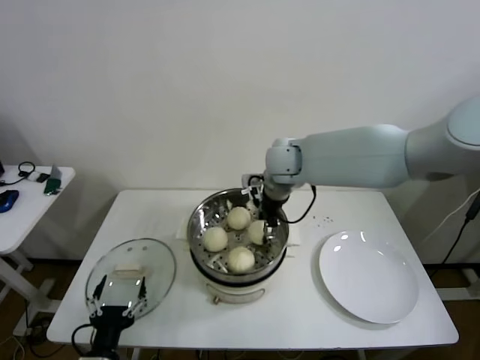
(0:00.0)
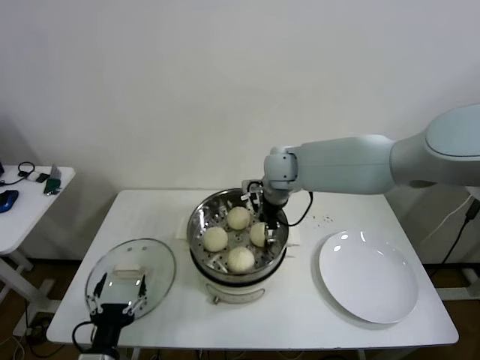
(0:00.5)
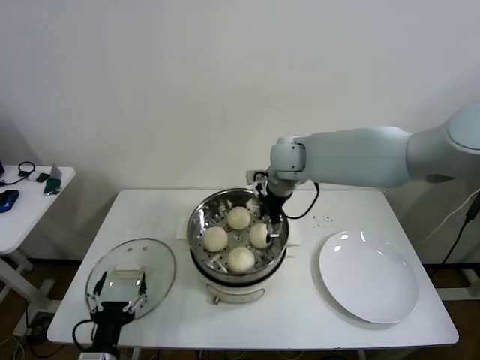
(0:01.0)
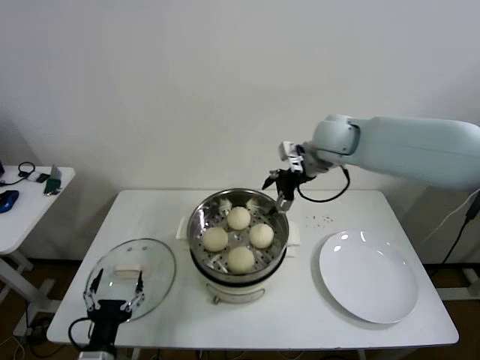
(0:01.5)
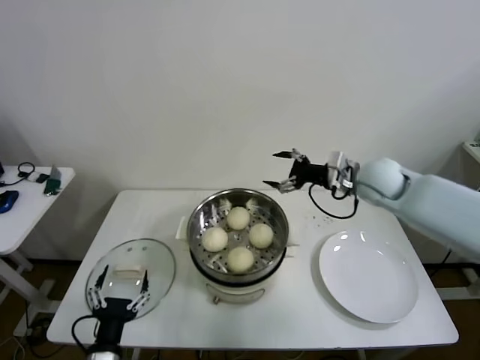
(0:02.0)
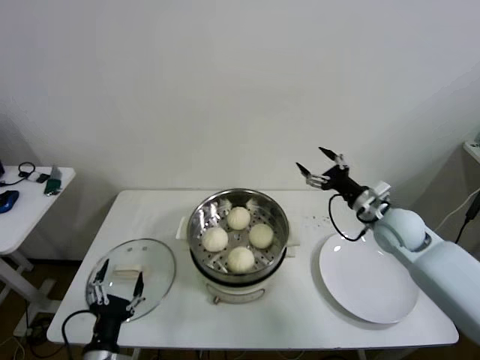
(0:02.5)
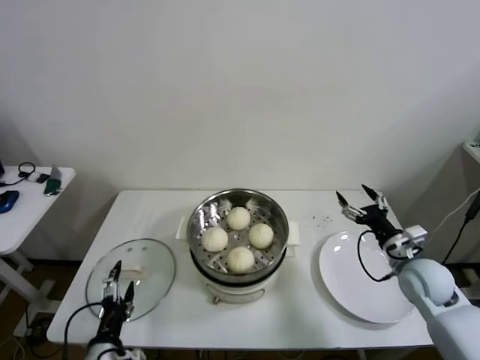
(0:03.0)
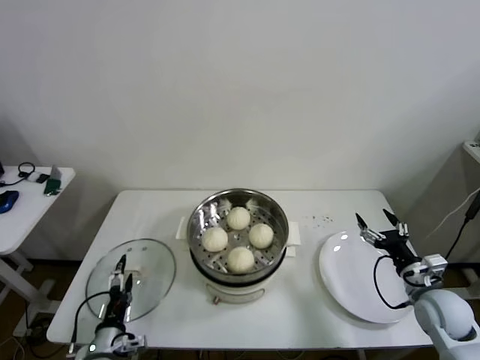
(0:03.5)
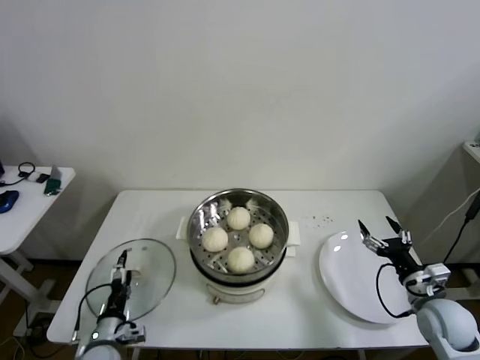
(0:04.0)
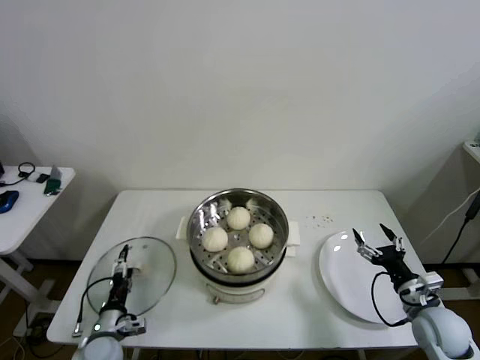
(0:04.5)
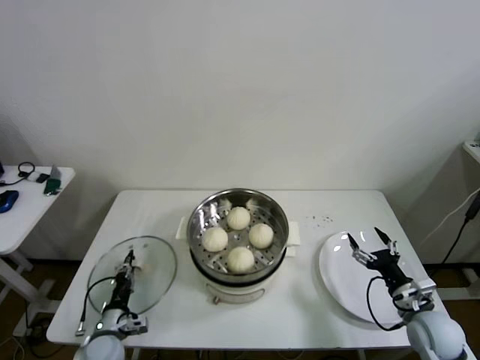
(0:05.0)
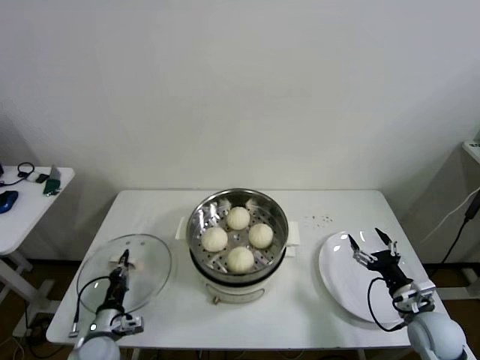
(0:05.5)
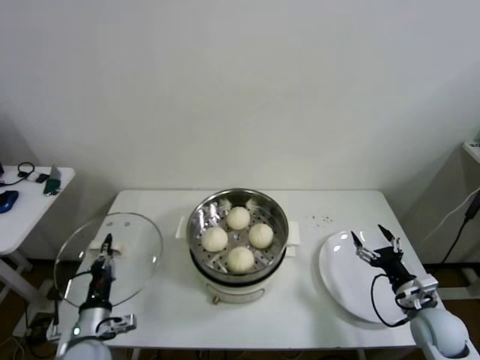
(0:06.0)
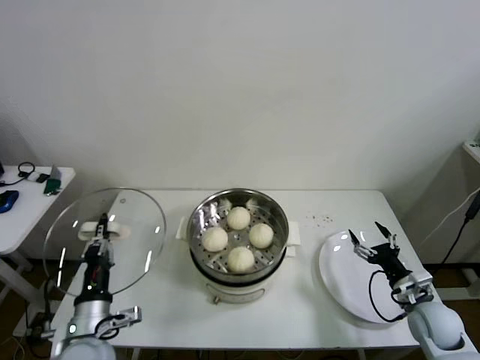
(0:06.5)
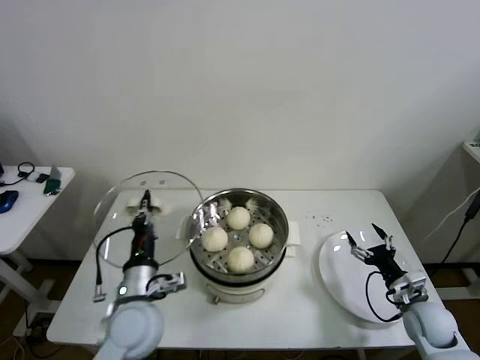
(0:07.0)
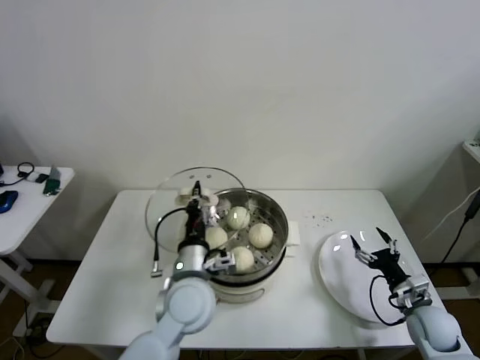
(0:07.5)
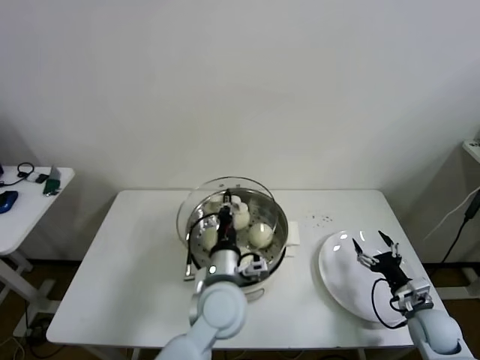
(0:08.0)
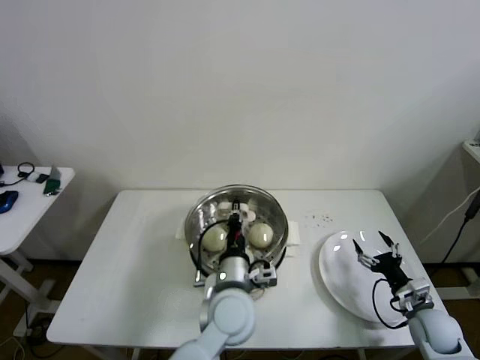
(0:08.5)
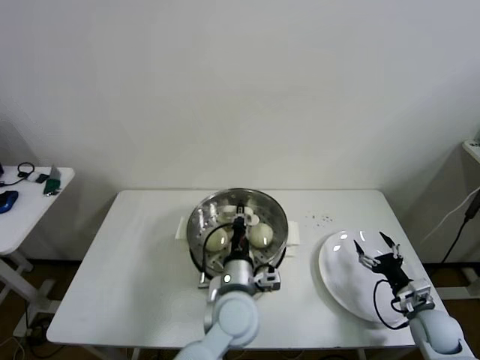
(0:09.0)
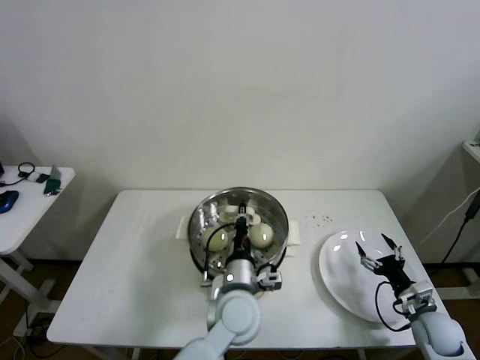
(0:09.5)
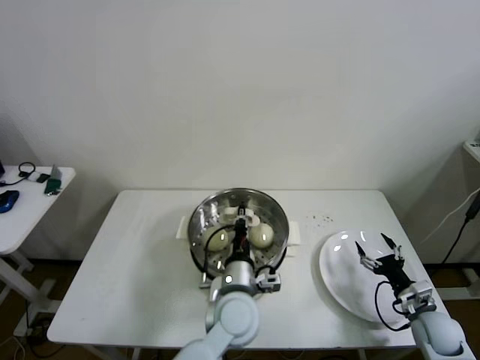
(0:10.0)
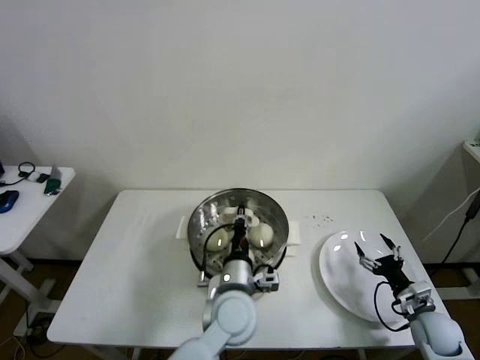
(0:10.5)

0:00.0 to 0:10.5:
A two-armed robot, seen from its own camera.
Step, 0:01.0 to 0:05.0: Grasp the pot lid with left gripper.
0:00.0 to 0:02.0: The right gripper heads to the right, covering approximately 20 cm, and opens up.
0:02.0 to 0:04.0: The left gripper travels downward, forward and to the left by some 15 cm. The right gripper travels backward, downward and to the right by some 35 cm.
0:04.0 to 0:06.5: The left gripper shifts some 15 cm upward, and closes.
0:06.5 to 0:08.5: The left gripper is displaced to the right by roughly 25 cm.
0:08.5 to 0:10.5: The grippers make only small movements.

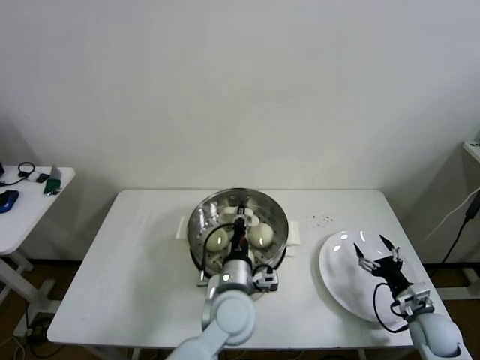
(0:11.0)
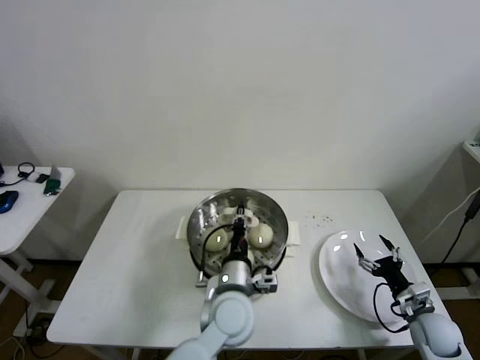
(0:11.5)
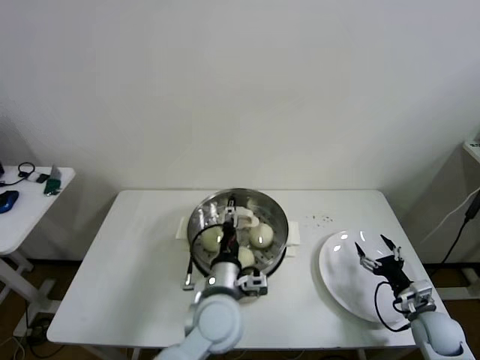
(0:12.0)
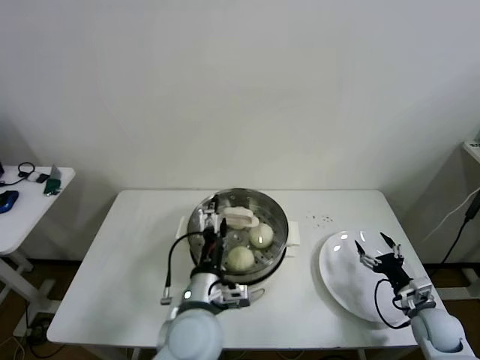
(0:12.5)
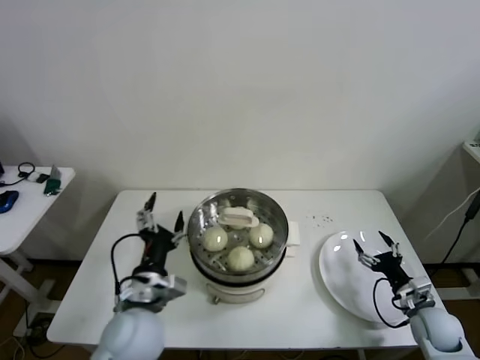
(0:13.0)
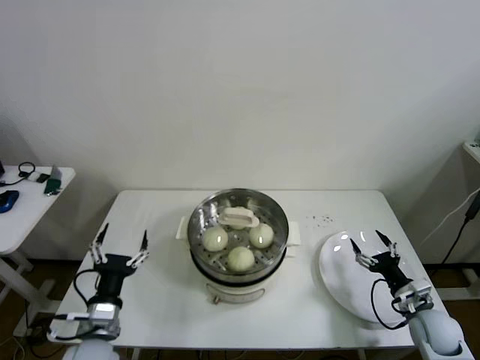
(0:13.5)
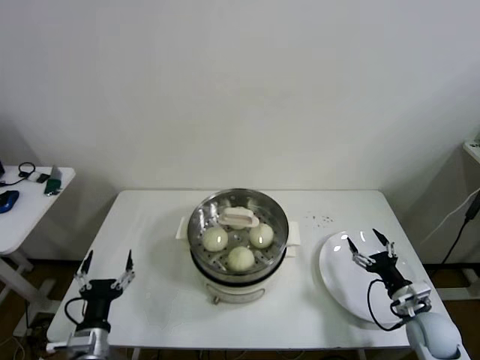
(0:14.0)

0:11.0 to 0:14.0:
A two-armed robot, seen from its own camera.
0:11.0 to 0:12.5: The left gripper heads to the left, covering roughly 5 cm, and opens.
0:12.5 to 0:14.0: The left gripper travels to the left and downward by roughly 25 cm.

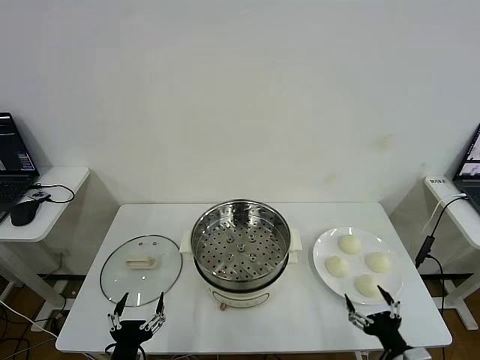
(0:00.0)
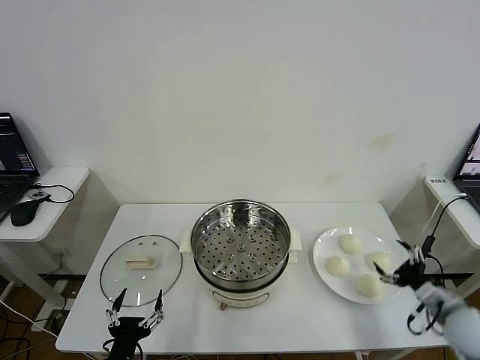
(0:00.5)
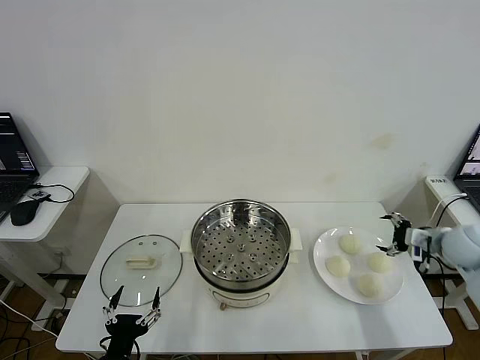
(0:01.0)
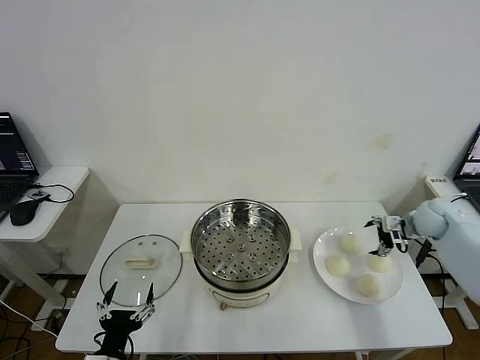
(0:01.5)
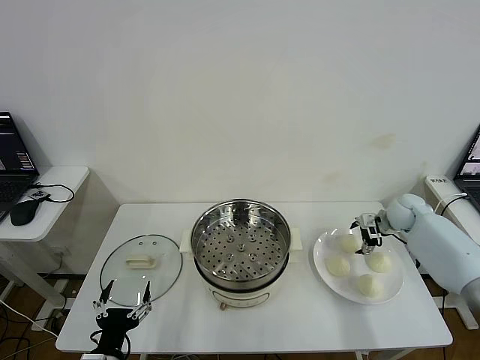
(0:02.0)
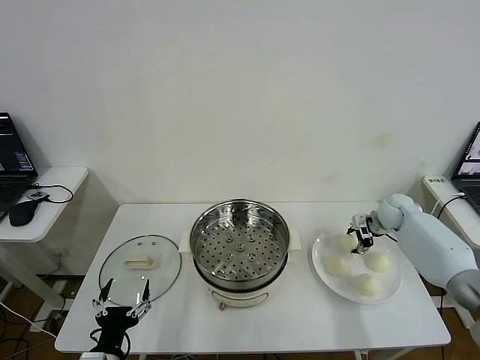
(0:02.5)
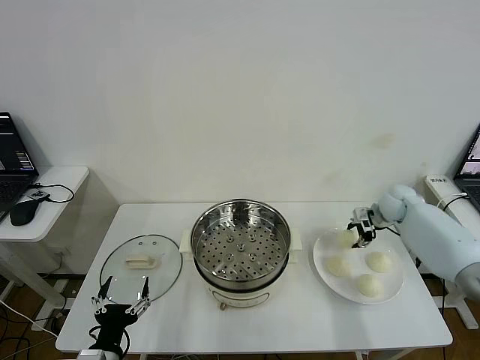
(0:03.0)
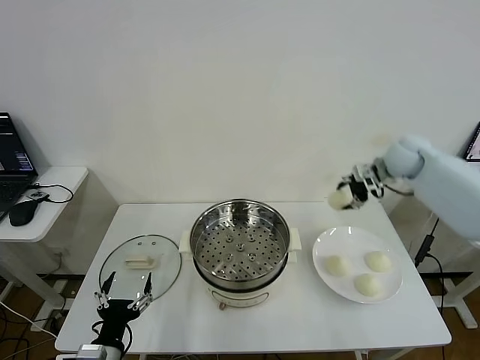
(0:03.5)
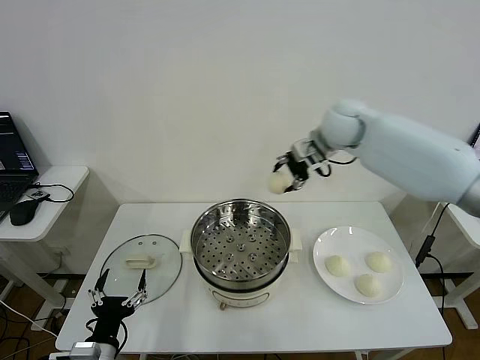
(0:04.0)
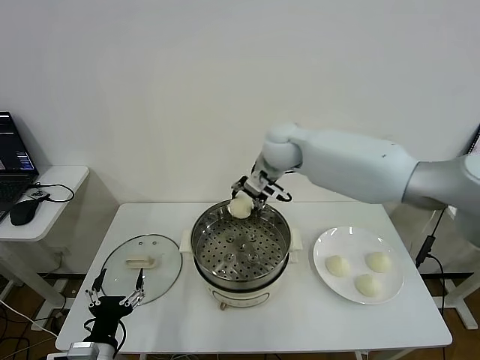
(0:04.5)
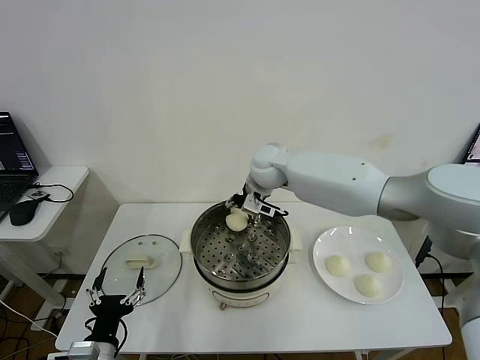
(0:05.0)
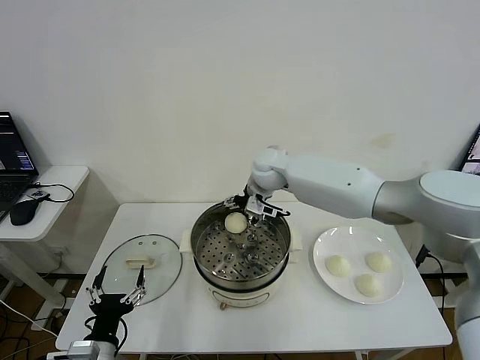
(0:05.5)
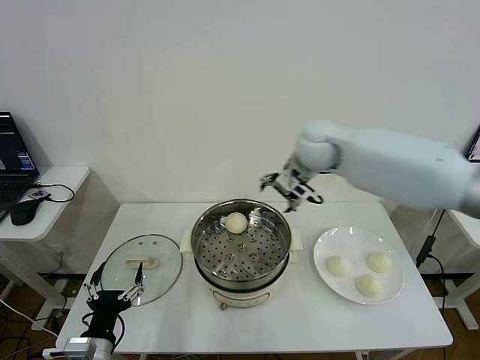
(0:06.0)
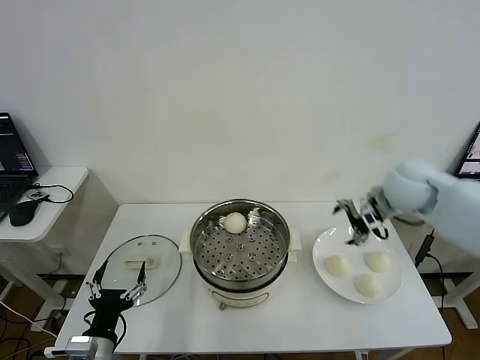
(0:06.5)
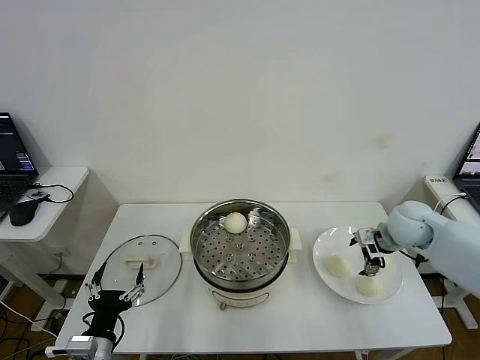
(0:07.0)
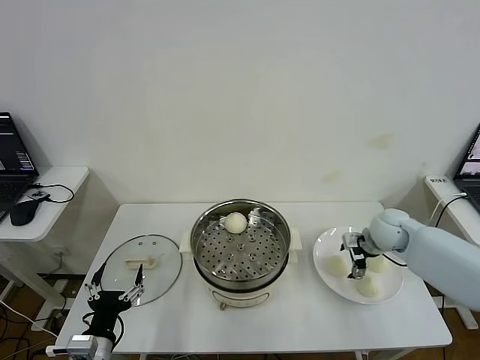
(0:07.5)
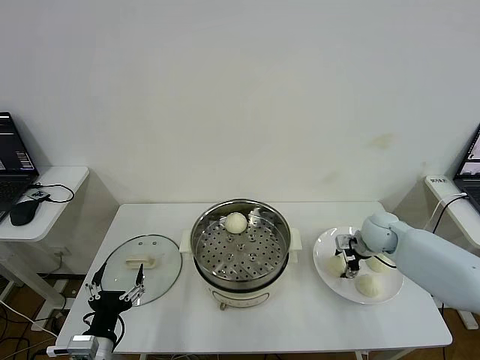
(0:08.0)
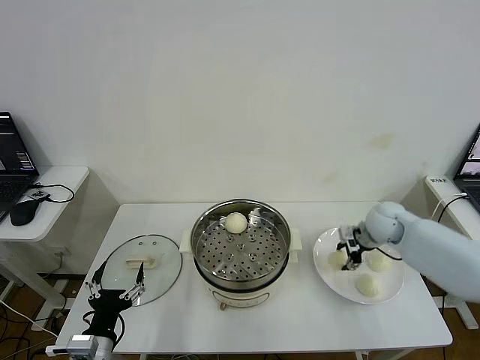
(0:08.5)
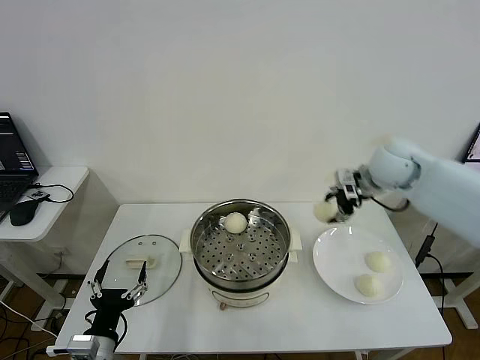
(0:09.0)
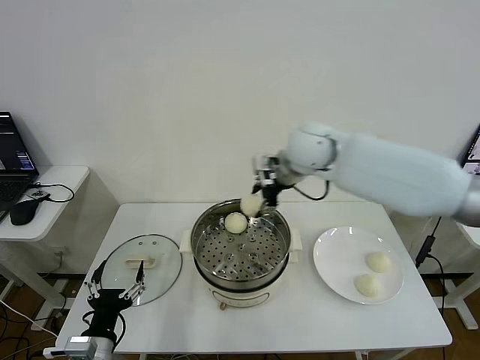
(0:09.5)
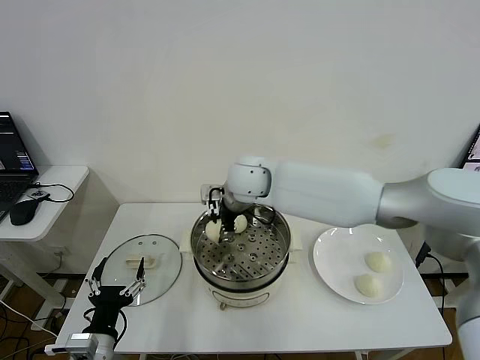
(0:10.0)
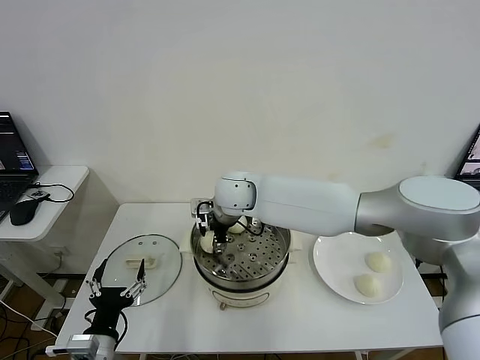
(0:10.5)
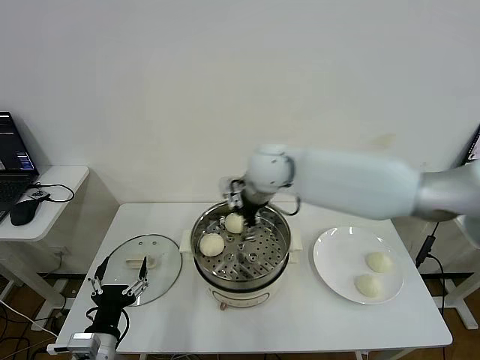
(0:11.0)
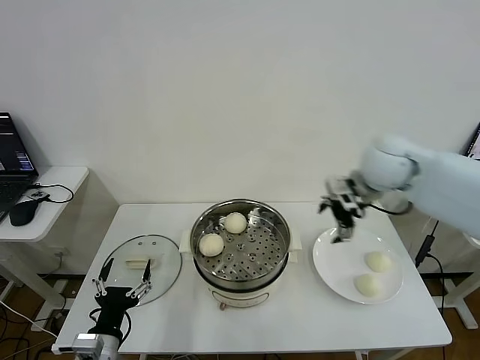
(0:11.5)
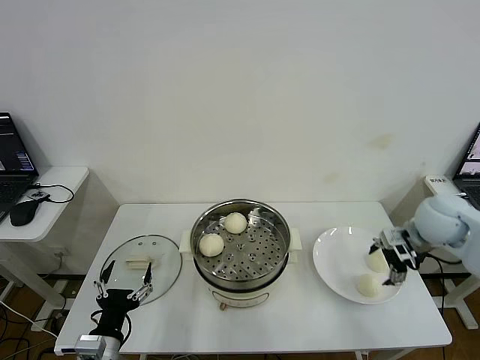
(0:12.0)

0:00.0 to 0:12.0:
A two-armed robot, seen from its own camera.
Step, 0:00.0 to 0:02.5: Grasp the baozi in the plate with right gripper.
Step, 0:03.0 to 0:05.0: Place the baozi on the steamer with right gripper.
Step, 0:05.5 to 0:08.0: Grasp the baozi in the plate with right gripper.
Step, 0:08.5 to 0:10.5: Place the baozi on the steamer with right gripper.
0:02.0 to 0:04.0: The right gripper heads to the left and upward, covering approximately 35 cm, and closes up.
0:04.0 to 0:06.0: The right gripper heads backward, covering approximately 5 cm, moves about 10 cm to the left and comes back, and opens its fingers.
0:06.0 to 0:08.0: The right gripper goes about 25 cm downward and to the right, and closes.
0:08.0 to 0:10.0: The right gripper moves to the left and upward, roughly 40 cm.
0:10.0 to 0:12.0: The right gripper goes approximately 40 cm to the right, and opens up.
